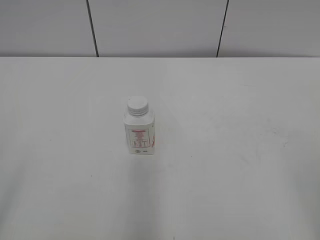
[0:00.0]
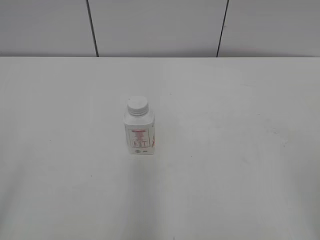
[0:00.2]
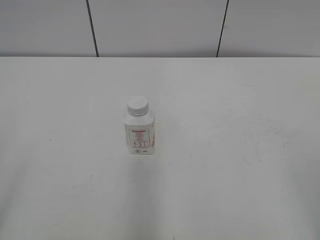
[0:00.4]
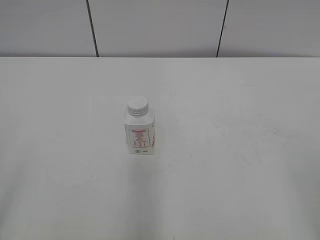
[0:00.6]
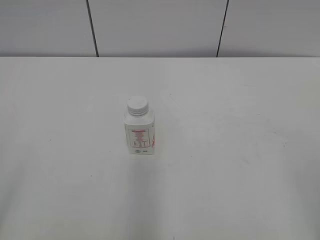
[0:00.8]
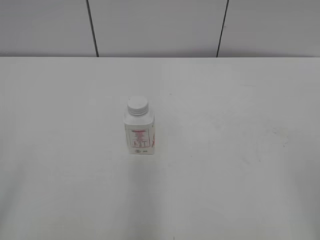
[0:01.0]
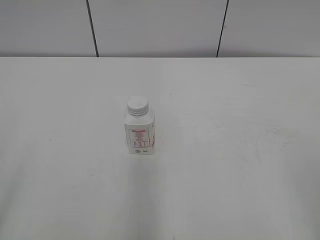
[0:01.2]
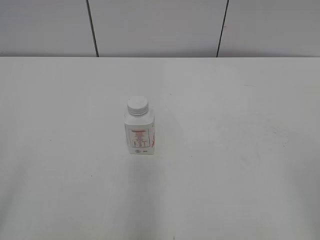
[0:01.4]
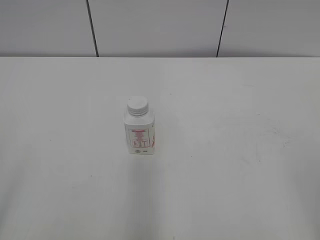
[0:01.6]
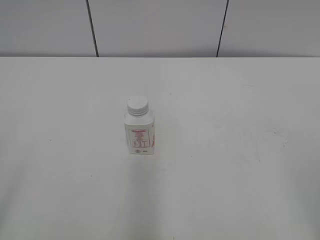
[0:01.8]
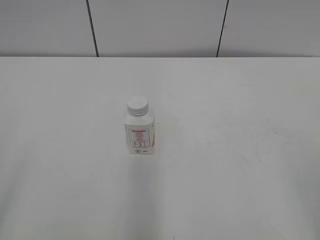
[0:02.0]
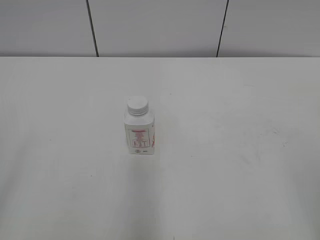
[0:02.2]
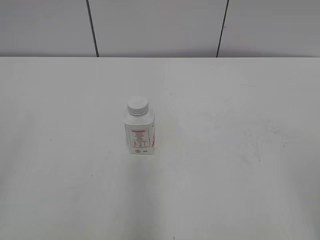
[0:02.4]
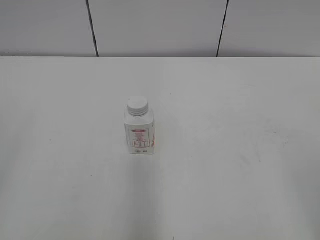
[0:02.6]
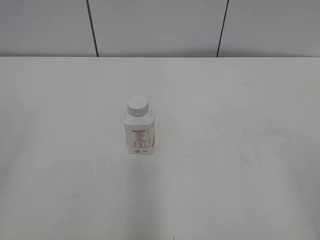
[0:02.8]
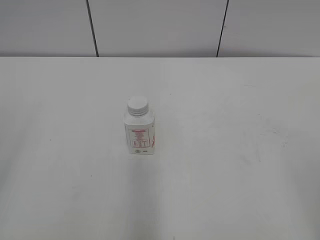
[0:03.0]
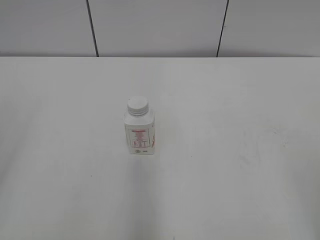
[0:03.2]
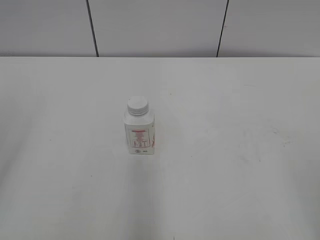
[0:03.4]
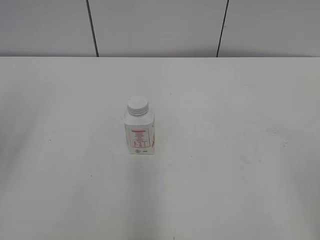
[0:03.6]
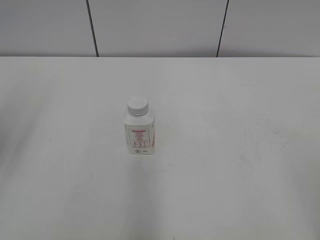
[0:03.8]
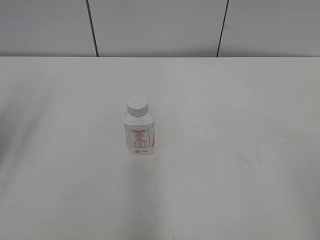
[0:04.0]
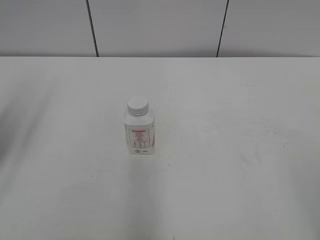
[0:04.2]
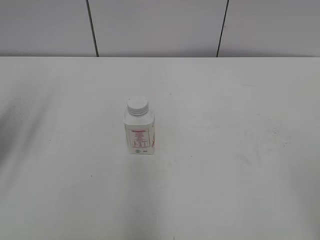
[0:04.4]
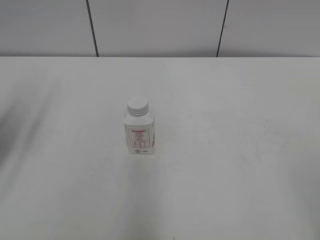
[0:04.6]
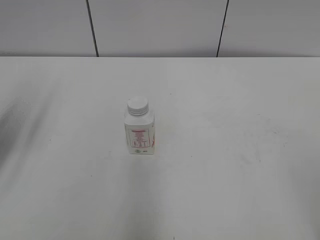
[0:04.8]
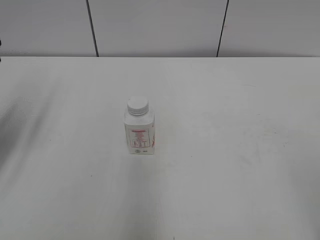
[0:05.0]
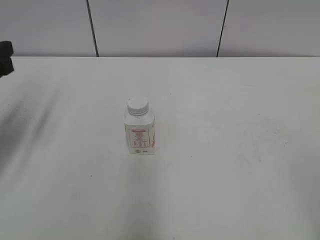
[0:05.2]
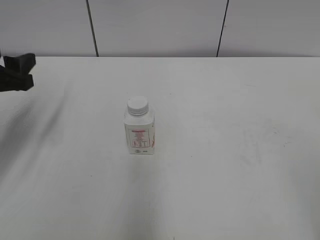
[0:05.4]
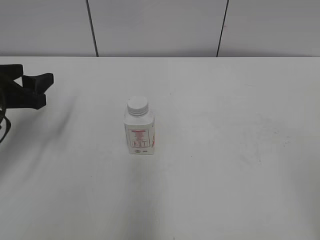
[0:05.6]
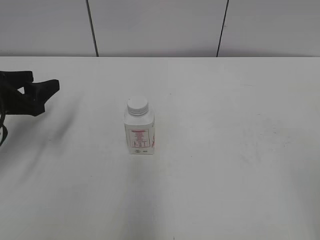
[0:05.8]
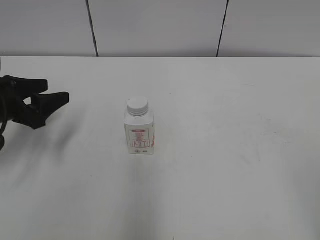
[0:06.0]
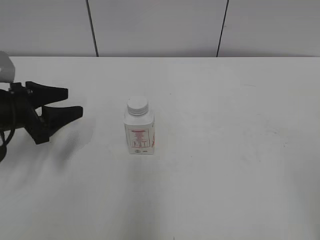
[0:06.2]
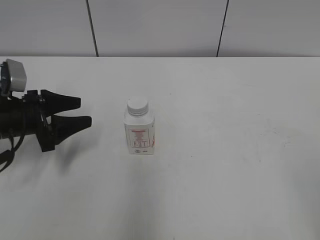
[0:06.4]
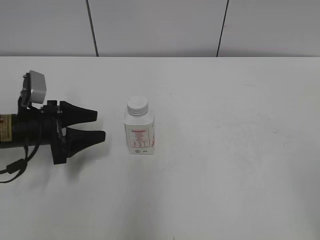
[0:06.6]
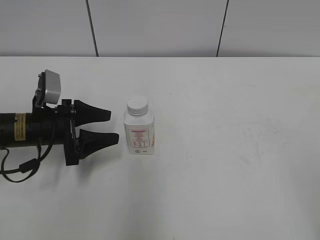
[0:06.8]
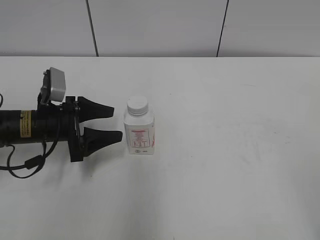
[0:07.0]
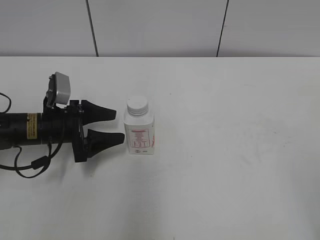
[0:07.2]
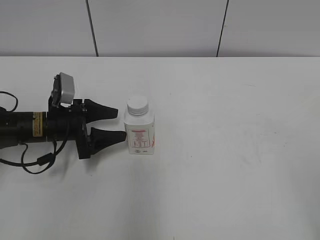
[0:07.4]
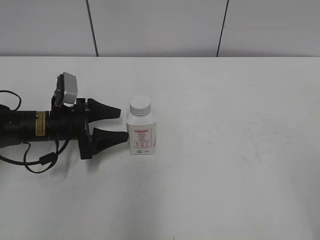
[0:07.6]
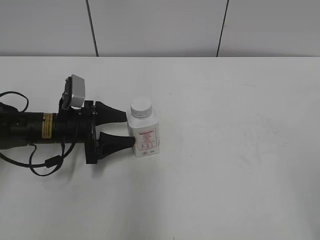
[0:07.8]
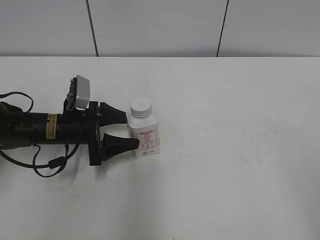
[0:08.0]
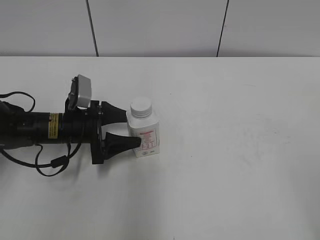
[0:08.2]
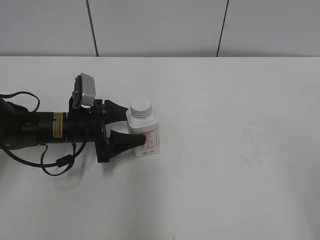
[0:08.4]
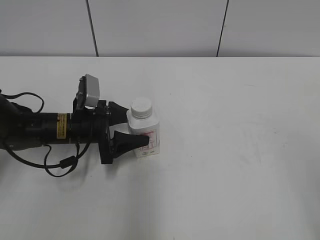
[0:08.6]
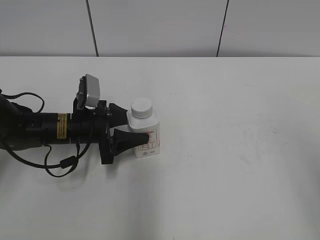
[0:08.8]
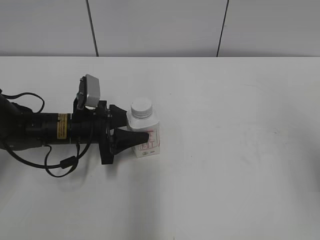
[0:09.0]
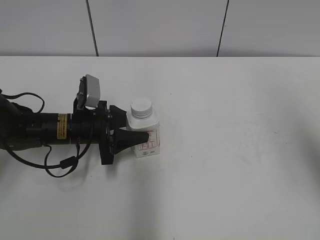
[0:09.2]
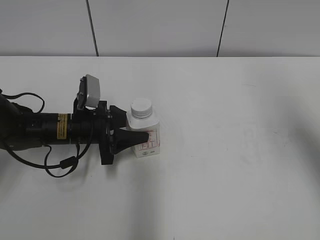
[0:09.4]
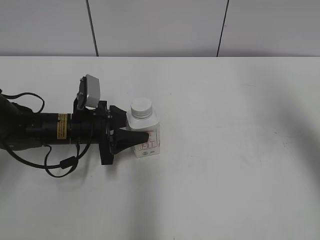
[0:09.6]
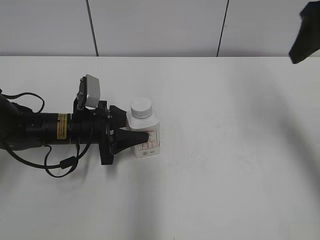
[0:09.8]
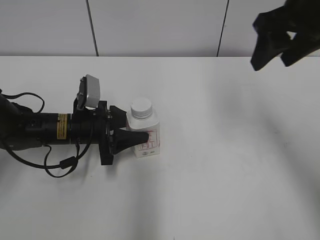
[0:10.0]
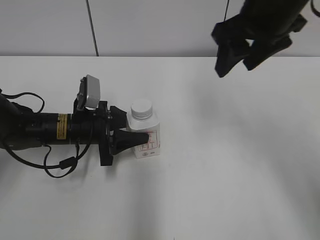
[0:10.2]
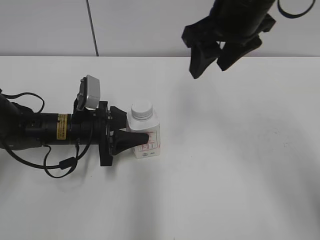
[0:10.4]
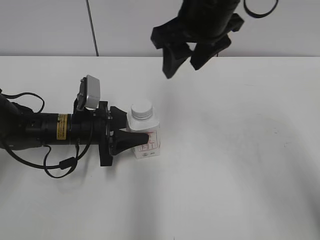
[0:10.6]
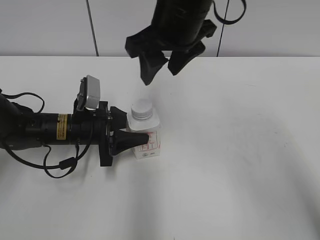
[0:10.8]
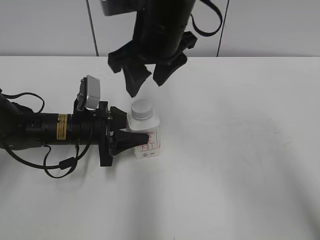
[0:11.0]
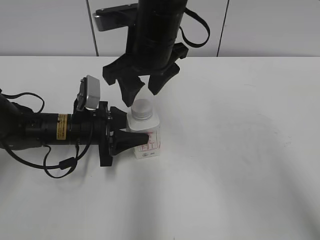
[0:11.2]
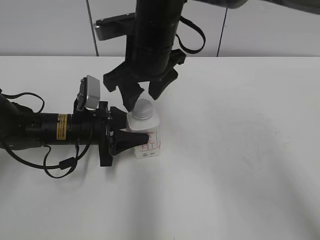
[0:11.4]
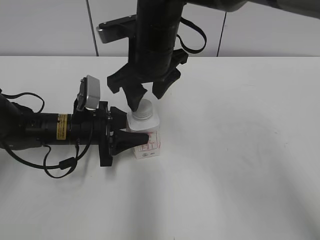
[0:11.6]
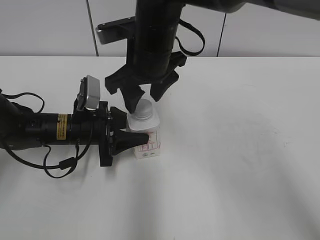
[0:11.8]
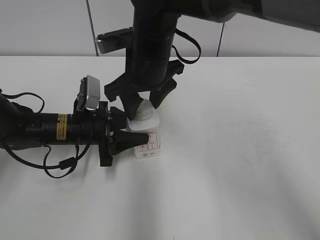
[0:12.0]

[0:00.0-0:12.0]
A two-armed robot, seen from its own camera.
Step, 0:00.0 to 0:09.0: Grasp the bottle and move it to the center of the table with the left gripper.
0:03.0 to 0:04.4: The left gripper moves forward, approximately 15 cm.
0:04.4 to 0:06.0: The left gripper travels downward and forward by some 15 cm.
0:06.0 to 0:07.6: The left gripper moves downward and to the right, about 10 cm.
0:07.6 to 0:09.0: The left gripper closes. Meanwhile the right gripper travels forward and upward by some 15 cm.
0:09.0 to 0:10.4: The right gripper is displaced forward and to the left by approximately 30 cm.
0:10.4 to 0:12.0: The right gripper is displaced to the left and downward by about 15 cm.

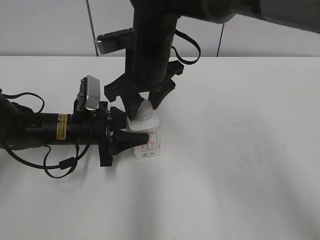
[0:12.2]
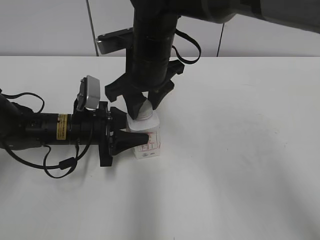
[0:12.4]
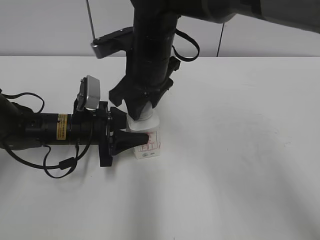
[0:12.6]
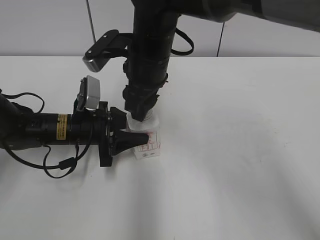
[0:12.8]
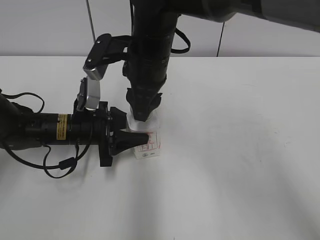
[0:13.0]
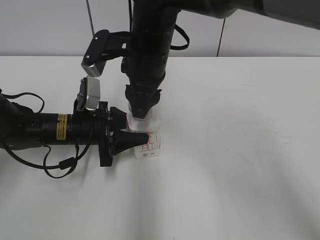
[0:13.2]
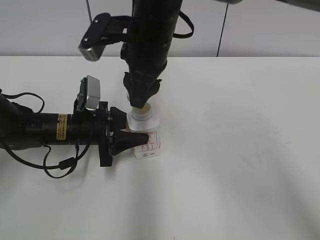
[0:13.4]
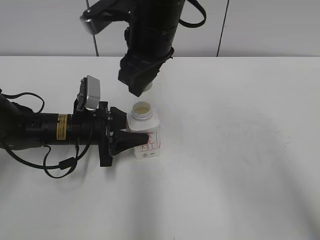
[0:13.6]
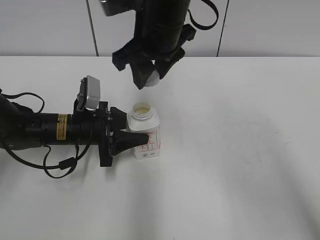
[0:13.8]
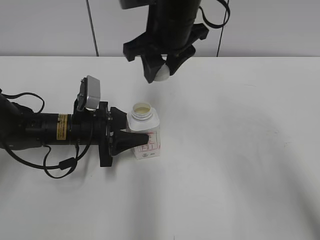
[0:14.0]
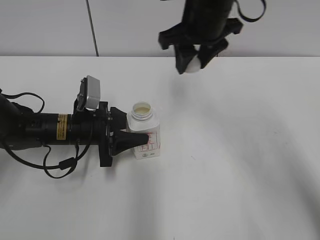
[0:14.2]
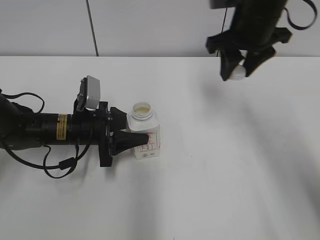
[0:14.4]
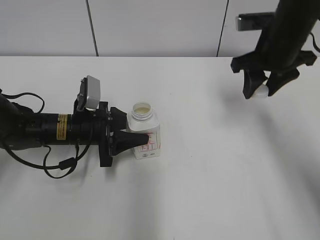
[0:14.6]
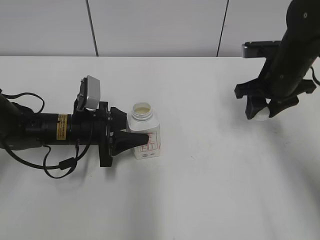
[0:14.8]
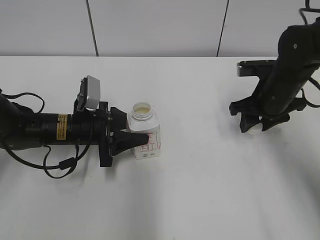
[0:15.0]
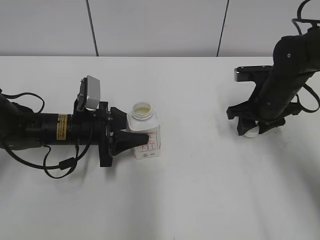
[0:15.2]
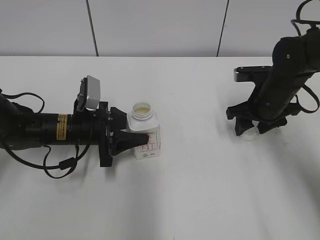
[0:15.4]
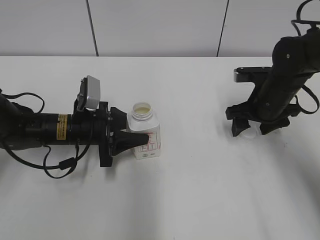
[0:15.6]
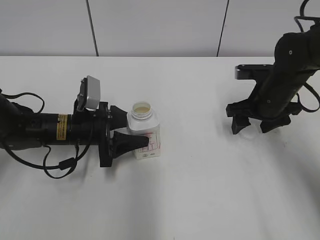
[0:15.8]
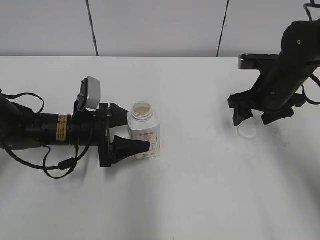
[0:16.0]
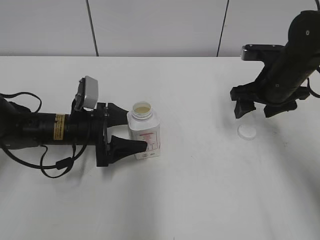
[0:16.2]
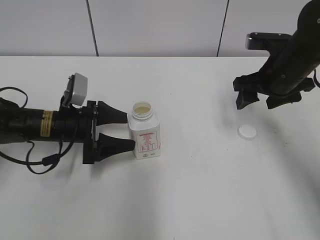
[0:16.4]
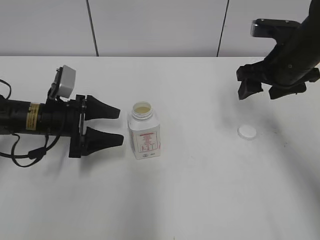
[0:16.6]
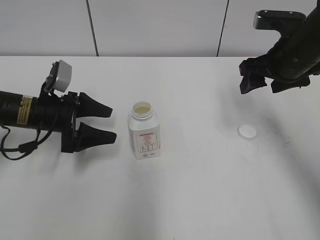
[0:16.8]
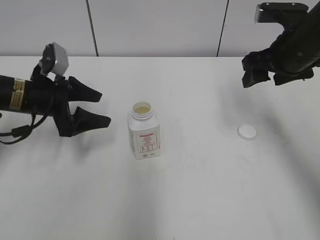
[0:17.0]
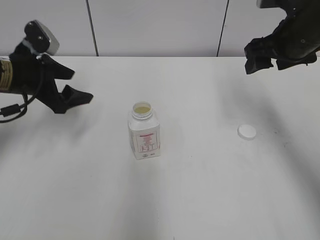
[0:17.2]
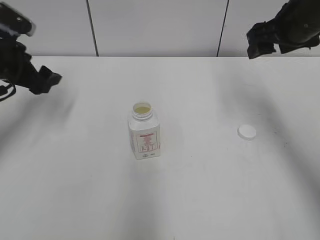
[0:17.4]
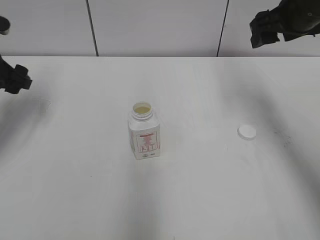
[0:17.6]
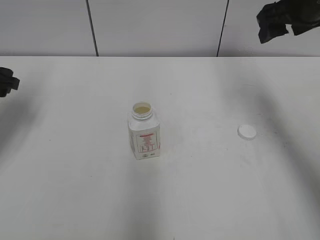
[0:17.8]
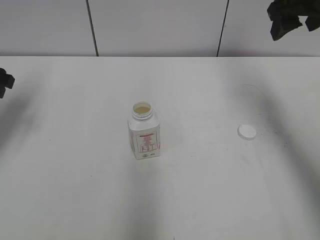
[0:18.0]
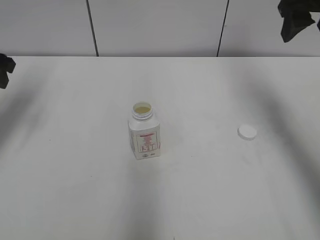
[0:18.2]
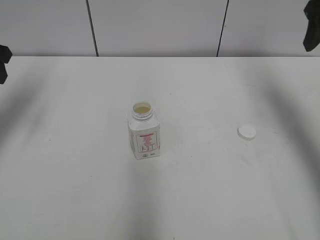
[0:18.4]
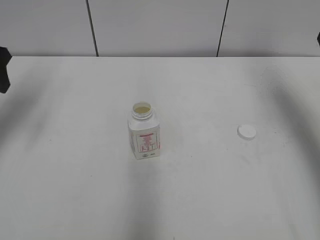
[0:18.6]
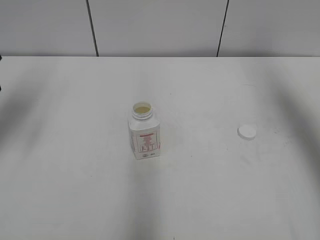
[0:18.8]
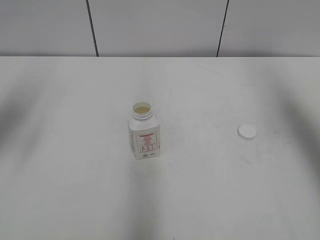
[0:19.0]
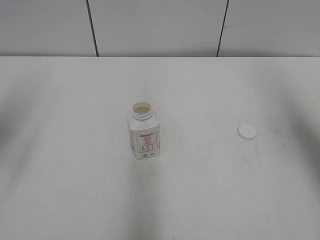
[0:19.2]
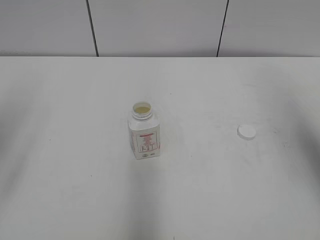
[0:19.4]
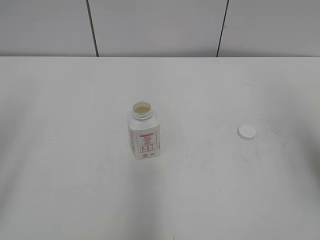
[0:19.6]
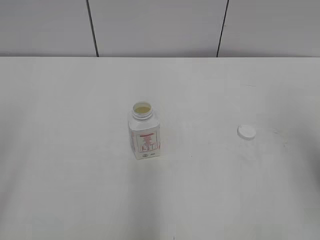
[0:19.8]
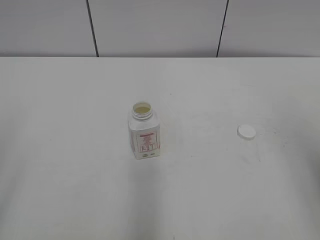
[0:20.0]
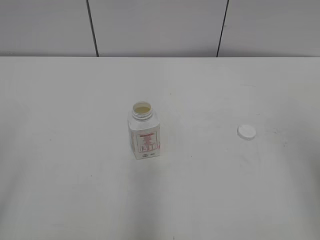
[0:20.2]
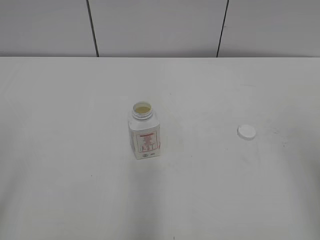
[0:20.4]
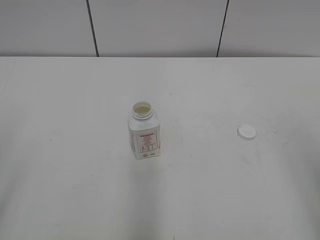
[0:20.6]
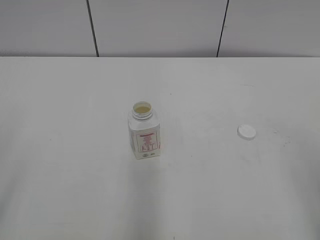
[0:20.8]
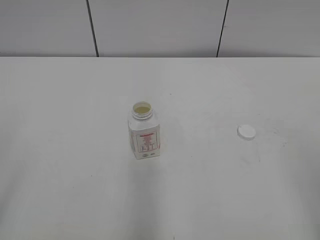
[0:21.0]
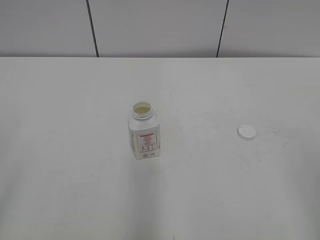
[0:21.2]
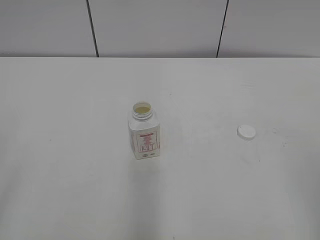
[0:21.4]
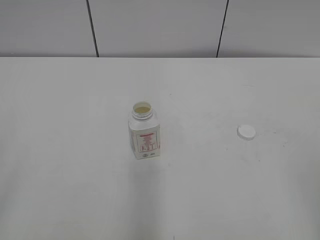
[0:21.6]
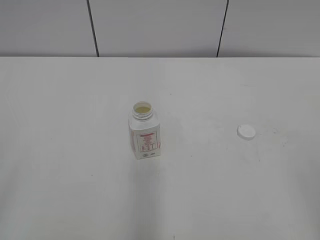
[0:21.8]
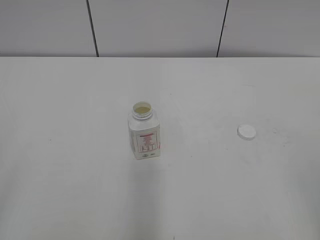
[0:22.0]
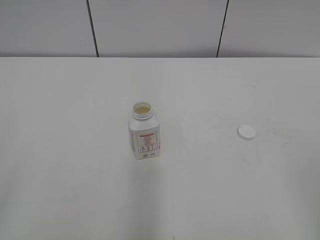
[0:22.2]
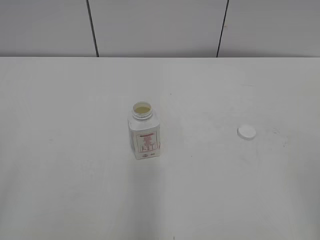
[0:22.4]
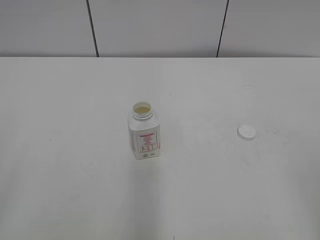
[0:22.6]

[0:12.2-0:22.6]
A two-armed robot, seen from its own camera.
Step, 0:13.6 to 0:15.2: Place the bottle cap on the table with the right gripper.
0:12.2 to 0:13.6: The right gripper heads upward, covering roughly 5 cm.
0:13.6 to 0:15.2: The right gripper shifts approximately 25 cm to the right and downward.
0:15.2 to 0:16.6: The left gripper shifts by about 5 cm, and opens; the right gripper heads upward, covering some 10 cm, and opens its fingers.
0:16.6 to 0:18.2: The left gripper travels upward and to the left by roughly 20 cm, while the right gripper travels upward by approximately 10 cm.
0:18.2 to 0:19.6: Both grippers move backward, approximately 20 cm.
